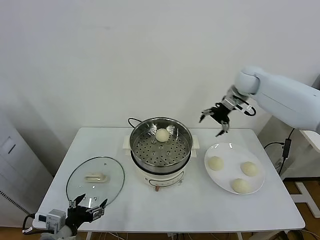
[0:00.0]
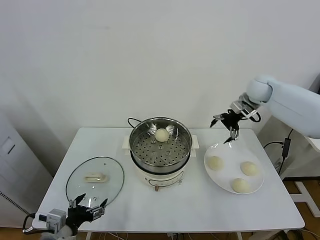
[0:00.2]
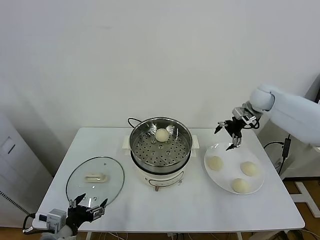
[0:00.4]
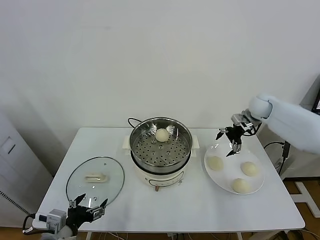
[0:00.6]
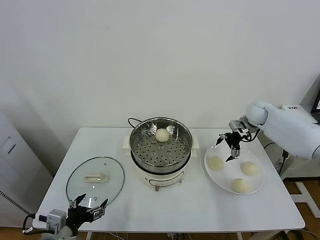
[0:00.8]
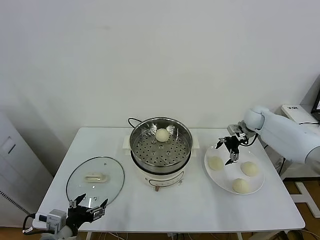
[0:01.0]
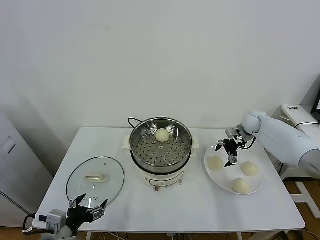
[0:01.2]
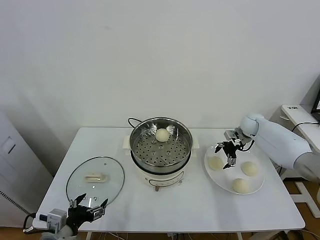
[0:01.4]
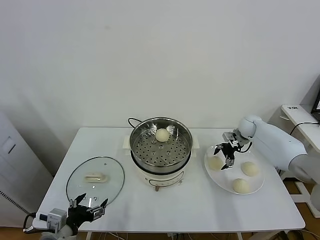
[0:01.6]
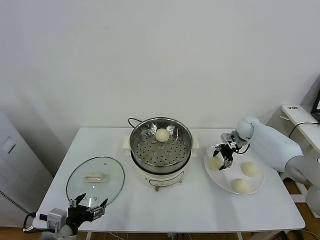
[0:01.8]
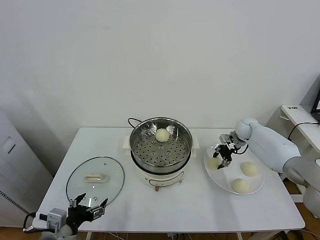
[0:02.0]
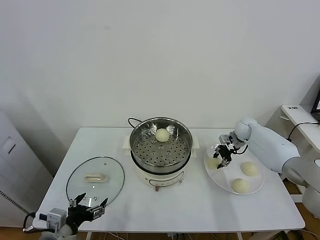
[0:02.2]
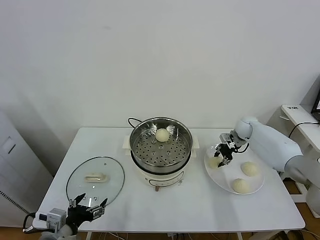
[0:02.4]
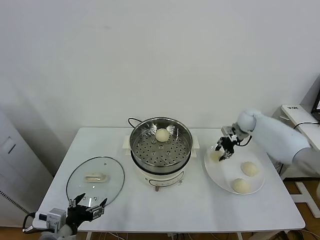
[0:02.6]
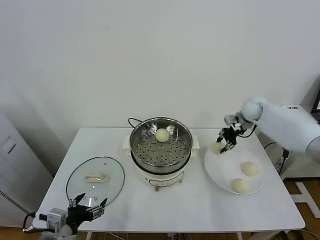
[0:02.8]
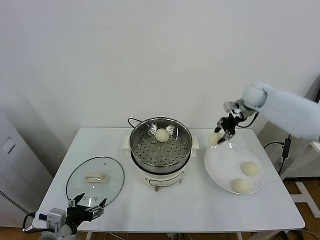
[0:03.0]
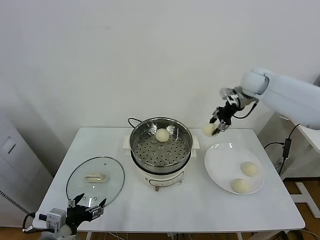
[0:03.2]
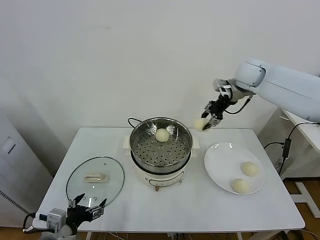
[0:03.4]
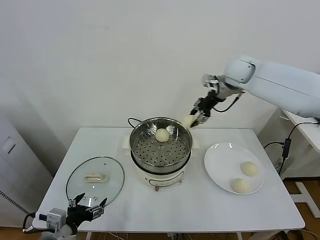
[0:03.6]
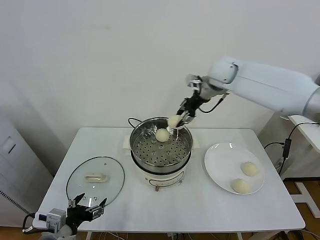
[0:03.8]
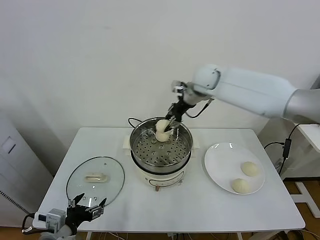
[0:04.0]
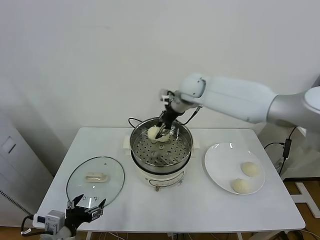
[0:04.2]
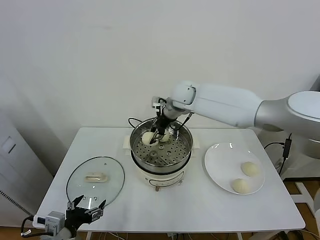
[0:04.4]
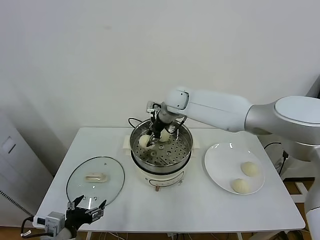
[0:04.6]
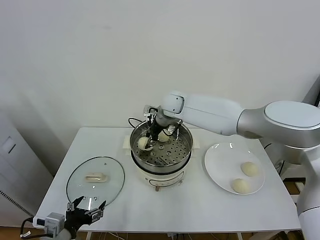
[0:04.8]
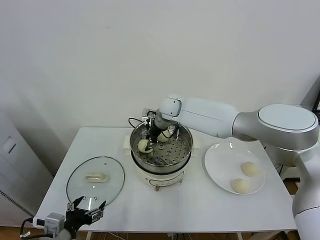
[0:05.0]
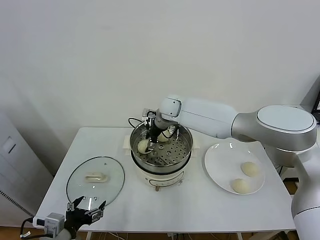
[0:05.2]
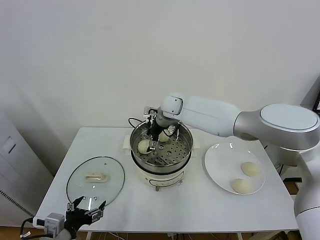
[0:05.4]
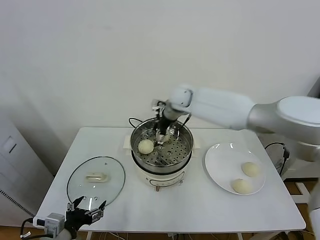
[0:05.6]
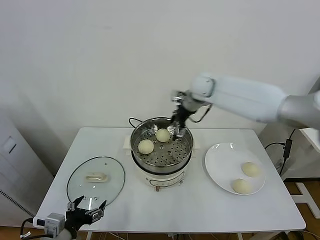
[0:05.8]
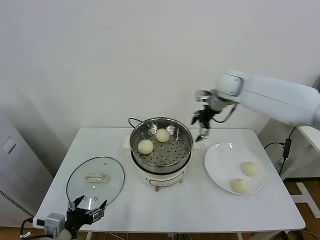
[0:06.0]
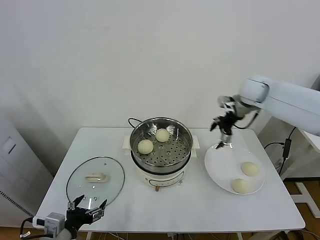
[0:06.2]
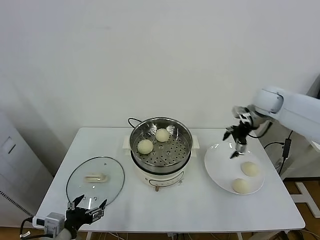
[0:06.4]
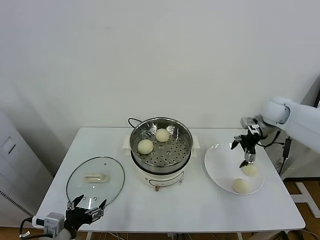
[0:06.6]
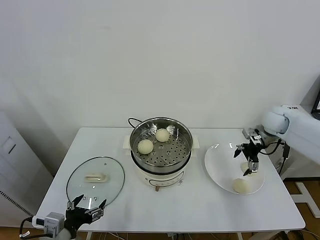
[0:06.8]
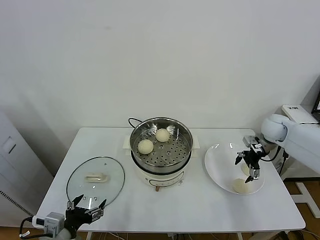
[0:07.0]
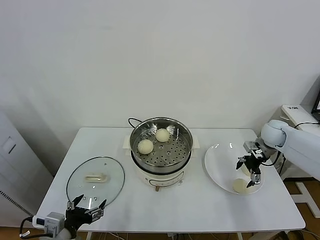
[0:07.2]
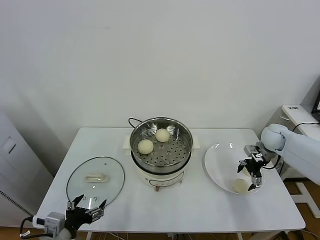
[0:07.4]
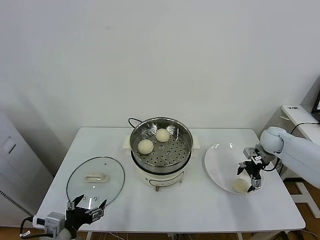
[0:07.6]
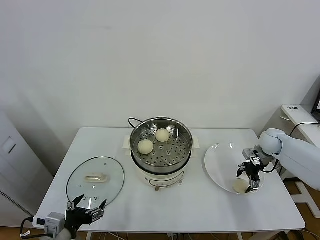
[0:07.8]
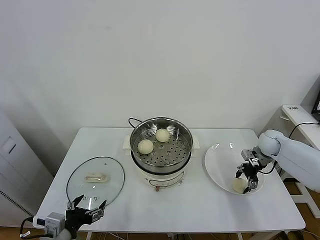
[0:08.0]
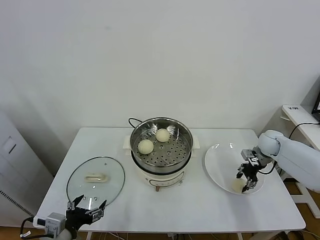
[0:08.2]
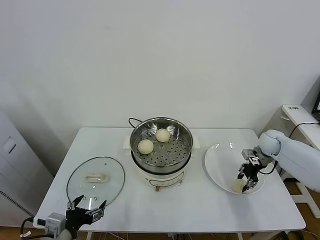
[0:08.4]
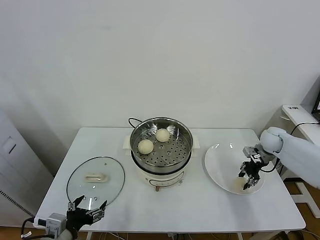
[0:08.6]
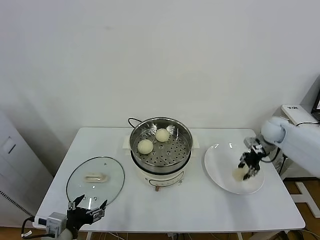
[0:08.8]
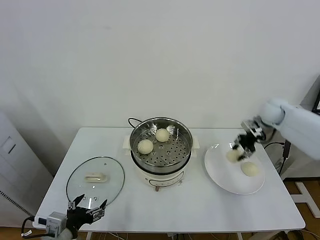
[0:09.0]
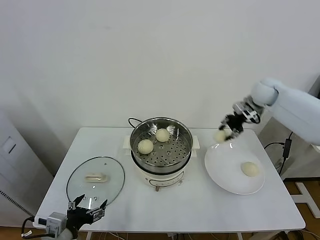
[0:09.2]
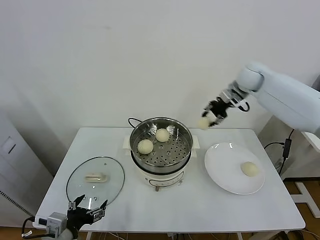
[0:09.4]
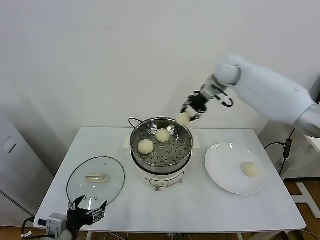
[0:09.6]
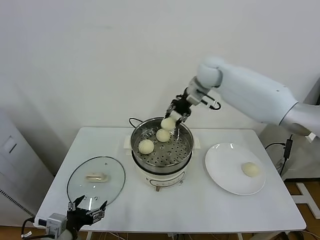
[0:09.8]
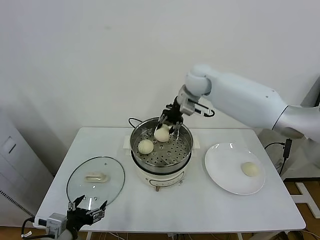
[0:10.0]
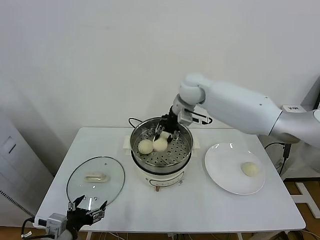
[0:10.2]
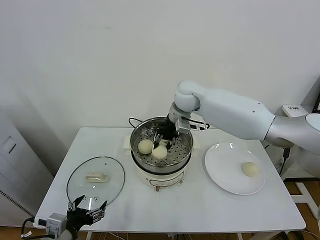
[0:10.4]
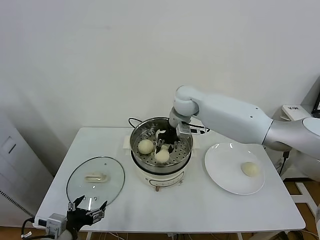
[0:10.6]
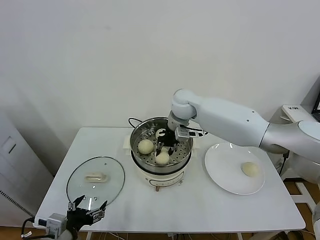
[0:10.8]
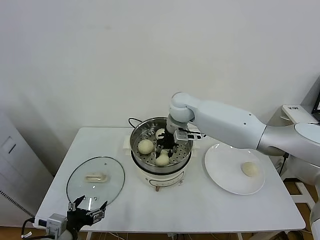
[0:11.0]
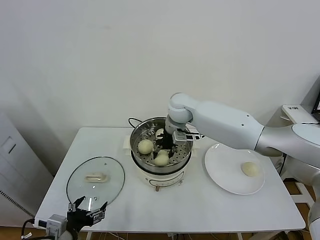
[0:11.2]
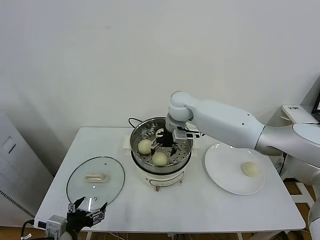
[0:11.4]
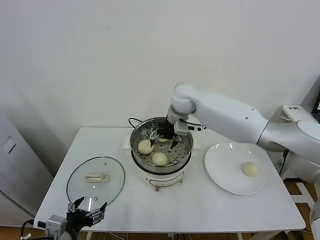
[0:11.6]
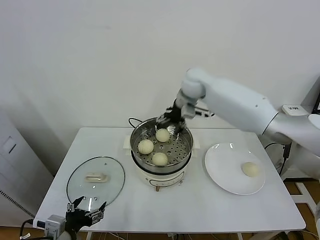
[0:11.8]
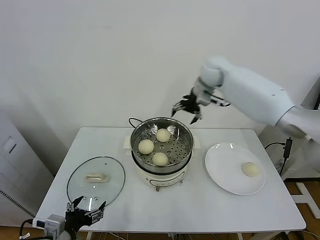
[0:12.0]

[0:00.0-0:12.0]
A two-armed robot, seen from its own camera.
Task of the whole recording: take steamed baozi put them in steamer.
Step, 0:00.0 to 0:01.8: Grasp the baozi in the plate with right gripper.
Step, 0:02.0 to 0:05.4: Place the baozi on the steamer with right gripper.
Step, 0:05.6 to 0:08.0: Grasp the baozi in the plate with right gripper.
Step, 0:08.2 to 0:11.4: Place the baozi on the steamer with right gripper.
0:00.0 to 0:01.6: The right gripper moves downward, some 20 cm.
0:01.6 to 0:03.0: The right gripper moves upward, roughly 20 cm, and closes.
0:03.0 to 0:04.4: The right gripper heads to the left, covering about 25 cm.
0:04.4 to 0:06.0: The right gripper is displaced to the right by about 20 cm, and opens up.
0:06.0 to 0:07.6: The right gripper is displaced downward and to the right by roughly 25 cm.
0:07.6 to 0:09.0: The right gripper is displaced upward and forward by roughly 15 cm, and closes its fingers.
0:09.0 to 0:10.4: The right gripper heads to the left, covering approximately 30 cm.
0:10.4 to 0:12.0: The right gripper heads to the right, upward and forward, covering approximately 15 cm, and opens its fingers.

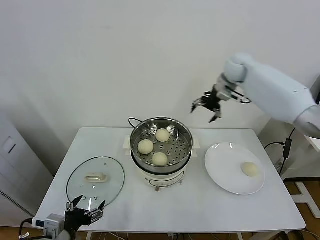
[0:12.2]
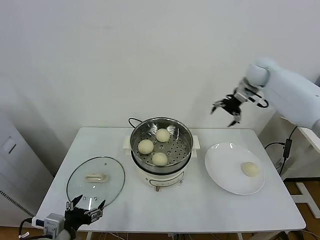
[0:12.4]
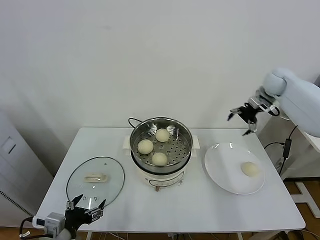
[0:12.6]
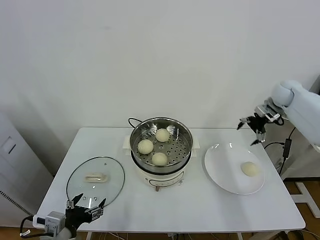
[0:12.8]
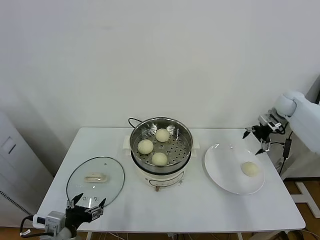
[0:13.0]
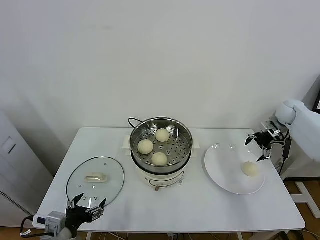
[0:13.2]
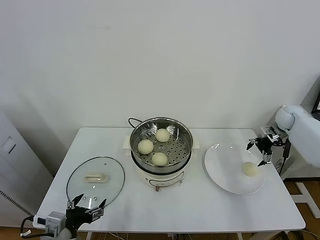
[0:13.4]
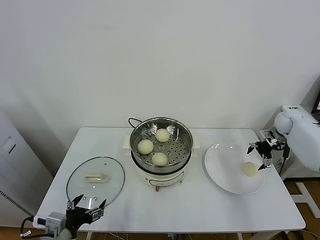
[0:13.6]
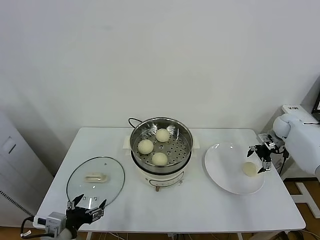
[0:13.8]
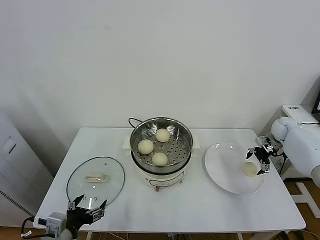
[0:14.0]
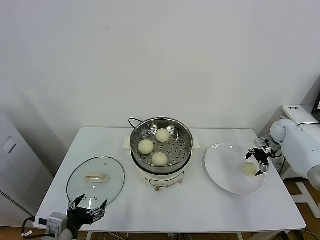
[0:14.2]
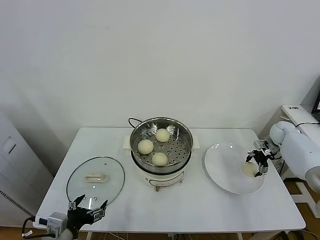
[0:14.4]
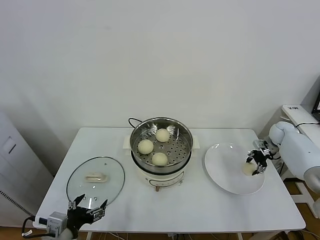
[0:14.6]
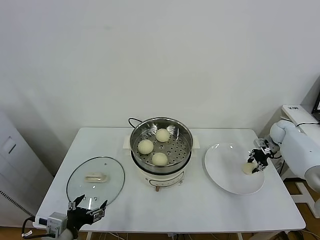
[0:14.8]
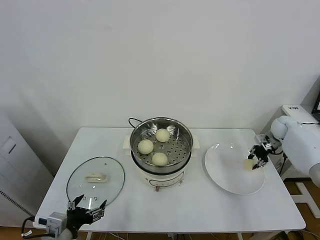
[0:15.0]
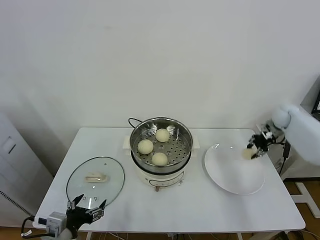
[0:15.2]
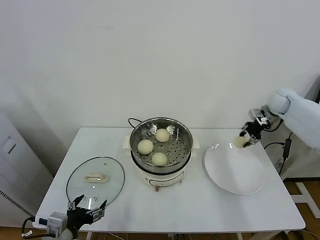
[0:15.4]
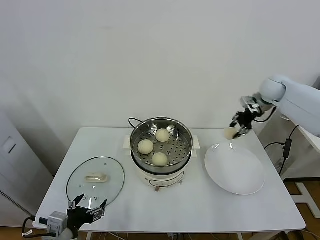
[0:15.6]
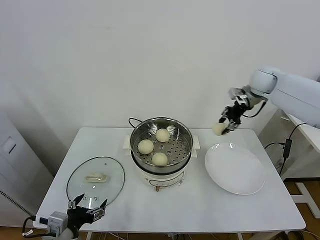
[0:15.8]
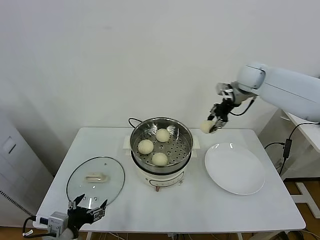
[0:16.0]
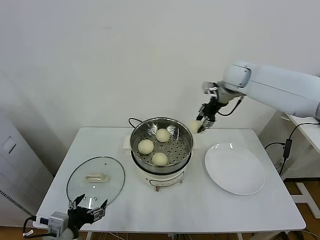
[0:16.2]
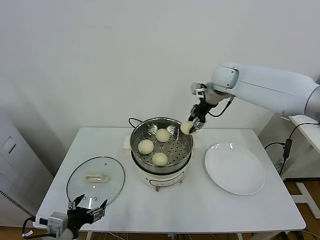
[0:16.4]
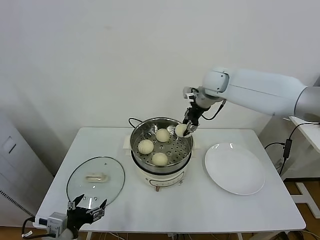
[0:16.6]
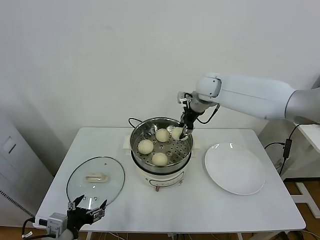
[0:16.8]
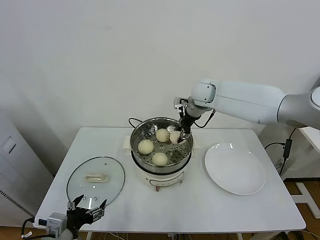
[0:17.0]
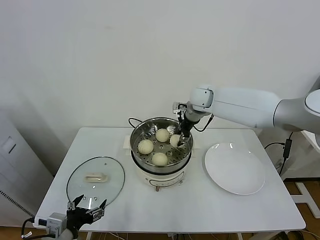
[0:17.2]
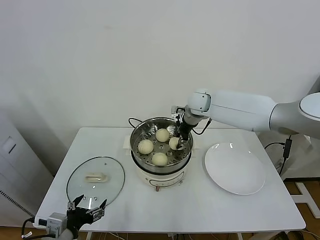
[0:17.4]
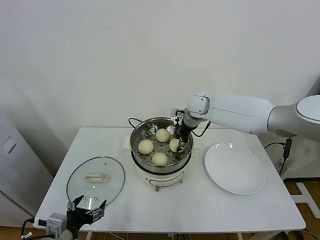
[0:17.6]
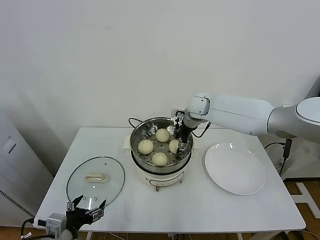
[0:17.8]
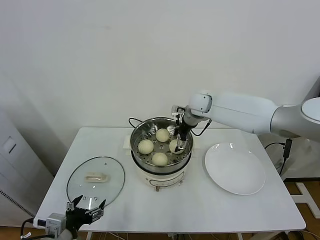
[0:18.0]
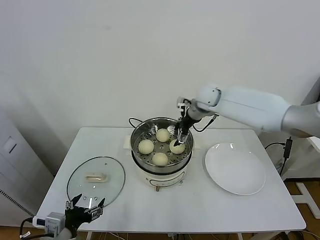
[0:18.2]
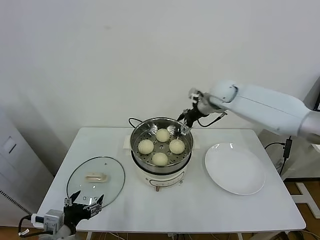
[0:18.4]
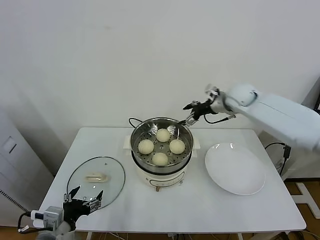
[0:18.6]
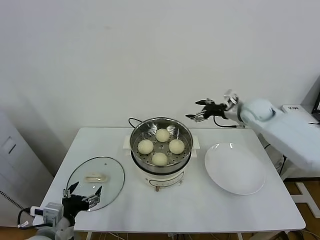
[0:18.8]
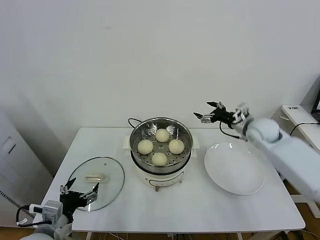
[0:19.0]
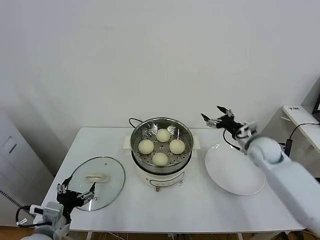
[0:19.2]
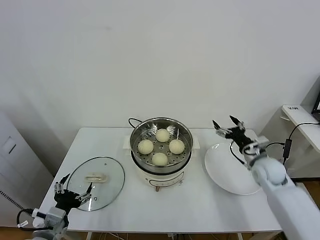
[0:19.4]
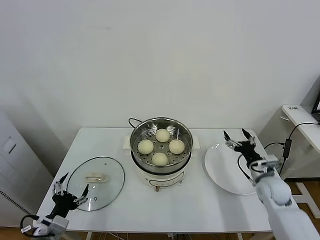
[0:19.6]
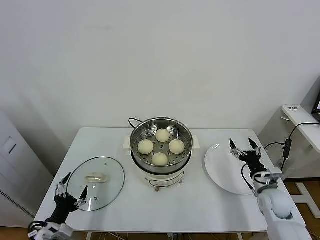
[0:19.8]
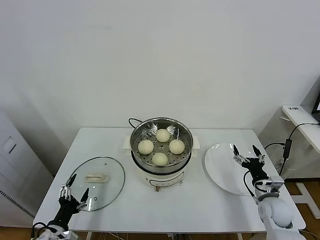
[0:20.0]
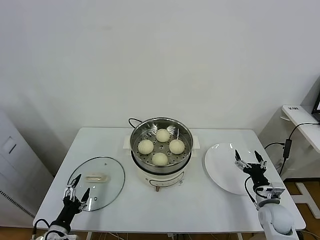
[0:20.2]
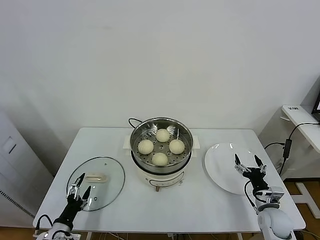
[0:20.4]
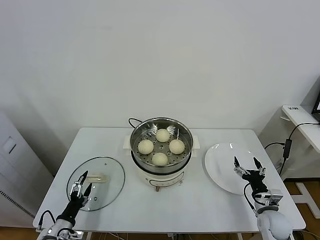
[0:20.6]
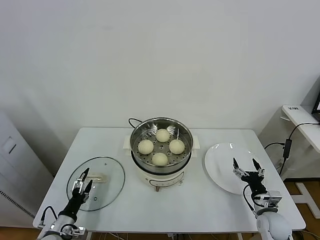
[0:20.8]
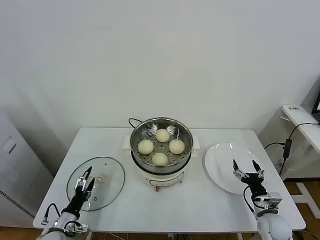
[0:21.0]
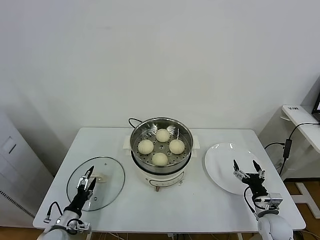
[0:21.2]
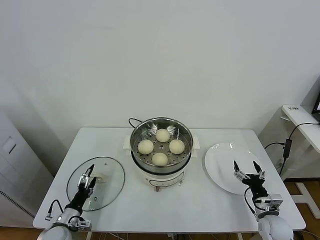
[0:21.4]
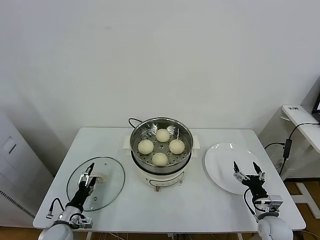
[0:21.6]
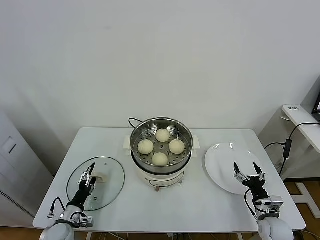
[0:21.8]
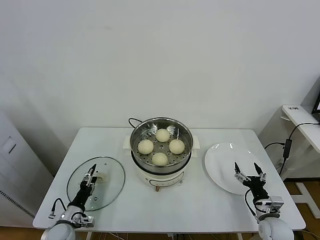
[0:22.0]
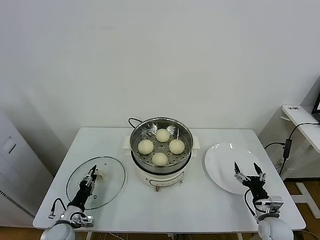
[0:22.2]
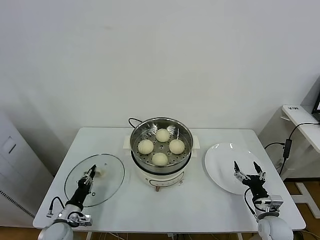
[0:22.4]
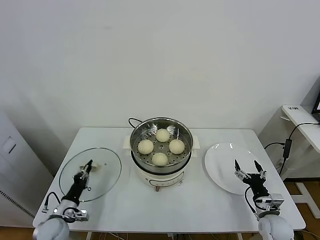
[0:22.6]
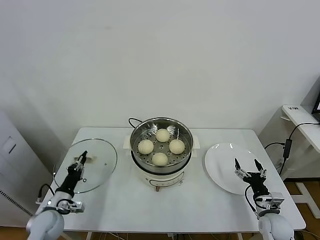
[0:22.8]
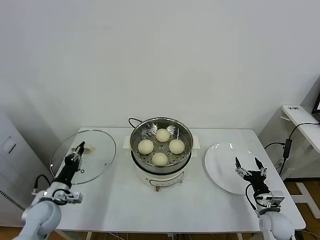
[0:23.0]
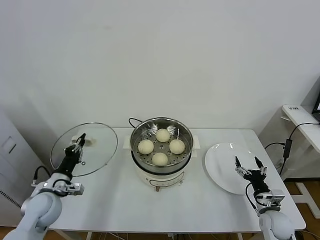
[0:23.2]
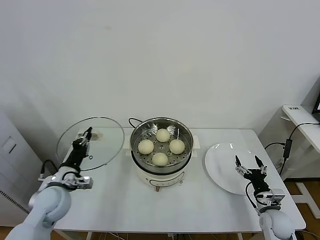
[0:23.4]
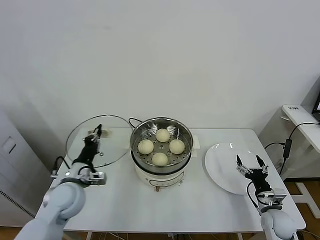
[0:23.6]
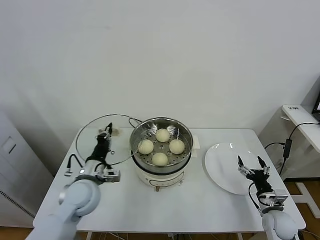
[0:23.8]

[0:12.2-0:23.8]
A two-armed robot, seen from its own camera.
Task of the whole recording: take steamed baozi put them in steamer.
Step, 0:12.2 to 0:14.6: Grasp the baozi in the plate with right gripper.
Step, 0:14.8 to 0:18.0: Place the baozi on the steamer with right gripper.
Step, 0:18.2 to 0:22.6: Grasp the pot lid with left gripper.
0:12.2 to 0:13.6: The right gripper shifts approximately 30 cm to the right and downward.
0:13.6 to 0:15.0: The right gripper closes.
0:15.0 to 0:16.6: The right gripper moves to the left and upward, about 40 cm.
0:16.6 to 0:18.0: The right gripper shifts approximately 10 cm downward, and opens its fingers.
0:18.0 to 0:19.4: The right gripper travels to the right, backward and downward by roughly 35 cm.
0:19.4 to 0:21.0: The right gripper moves downward and backward, about 20 cm. Meanwhile the left gripper travels downward by approximately 15 cm.
0:21.0 to 0:22.4: The left gripper closes.
0:22.4 to 0:23.8: The left gripper shifts about 25 cm upward and to the right.
